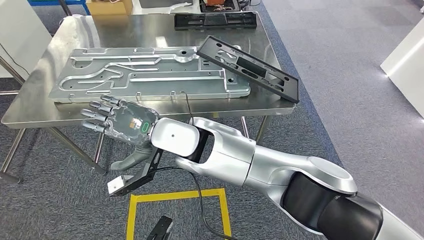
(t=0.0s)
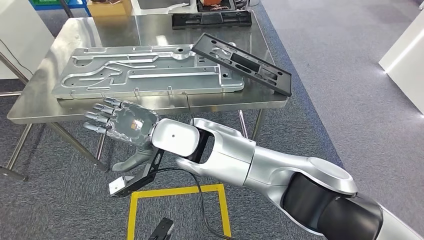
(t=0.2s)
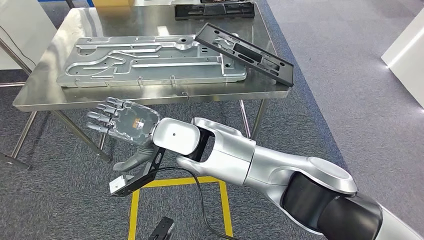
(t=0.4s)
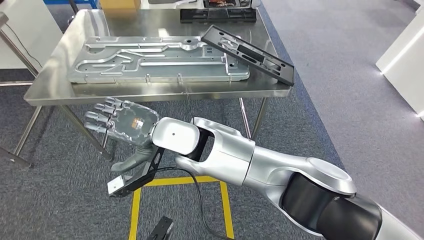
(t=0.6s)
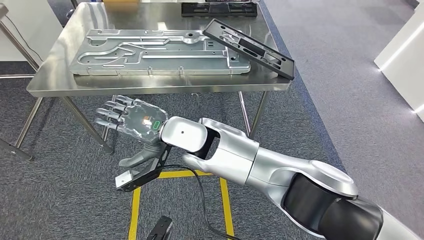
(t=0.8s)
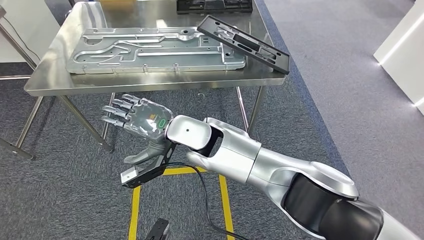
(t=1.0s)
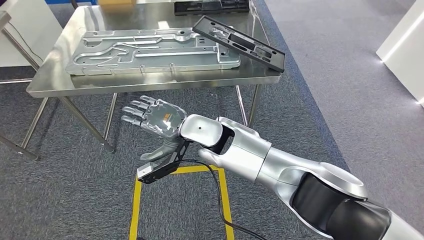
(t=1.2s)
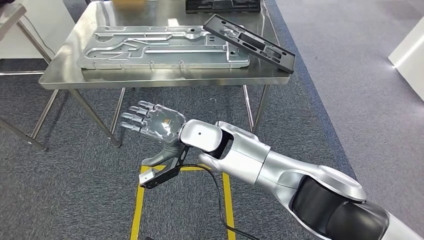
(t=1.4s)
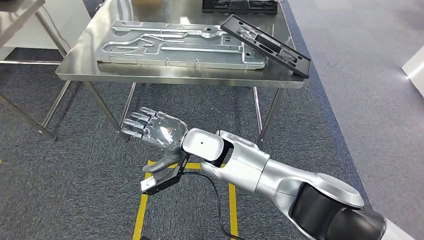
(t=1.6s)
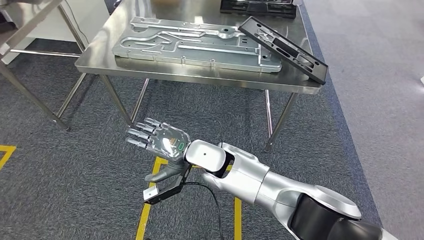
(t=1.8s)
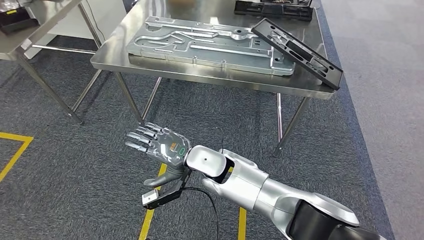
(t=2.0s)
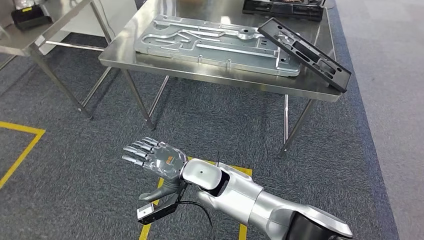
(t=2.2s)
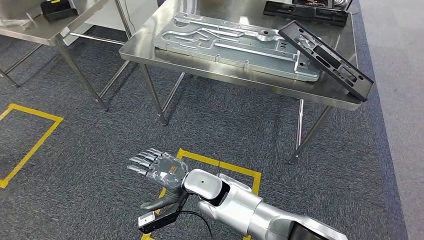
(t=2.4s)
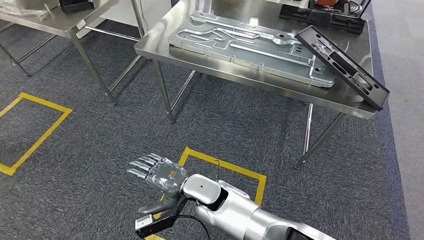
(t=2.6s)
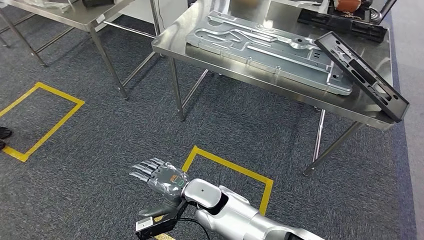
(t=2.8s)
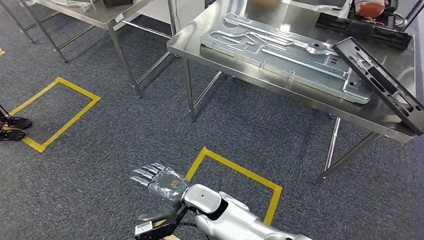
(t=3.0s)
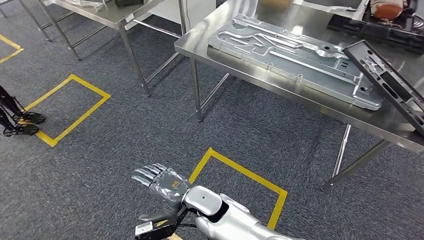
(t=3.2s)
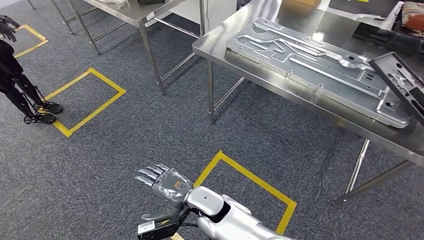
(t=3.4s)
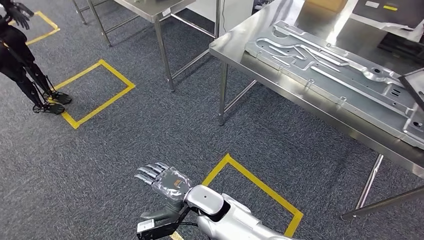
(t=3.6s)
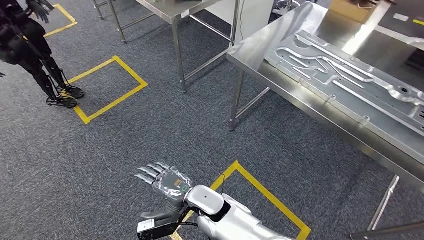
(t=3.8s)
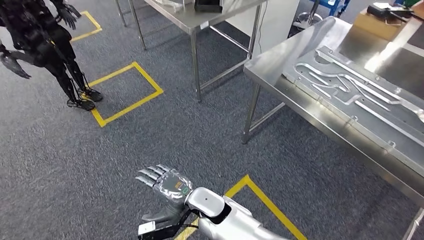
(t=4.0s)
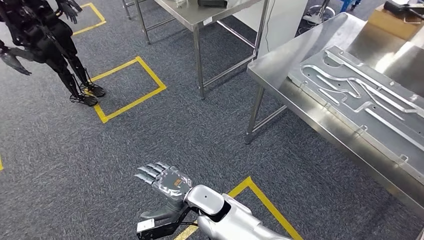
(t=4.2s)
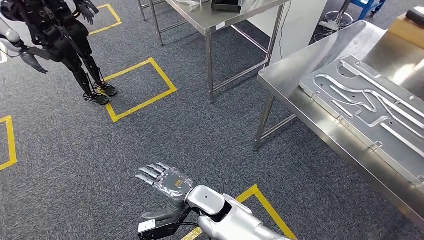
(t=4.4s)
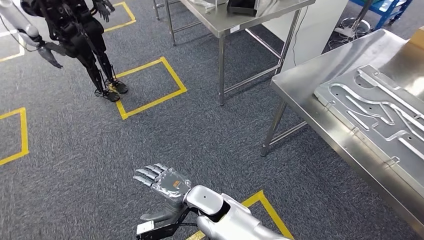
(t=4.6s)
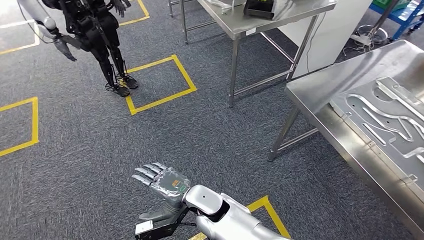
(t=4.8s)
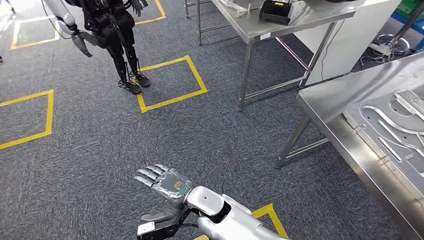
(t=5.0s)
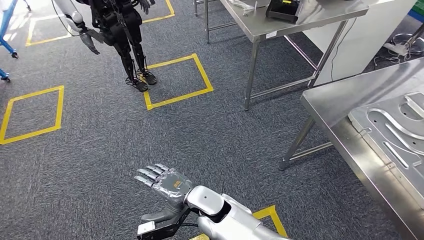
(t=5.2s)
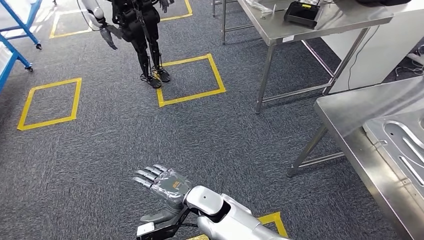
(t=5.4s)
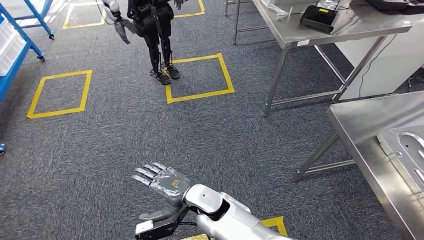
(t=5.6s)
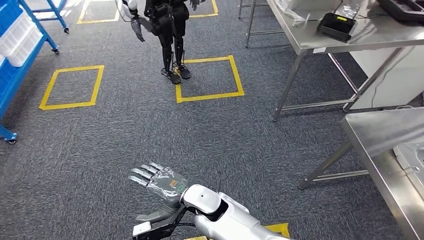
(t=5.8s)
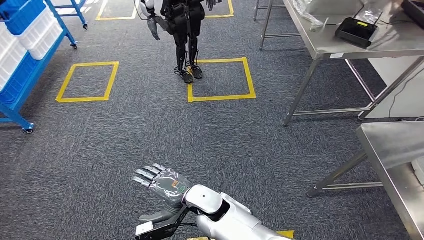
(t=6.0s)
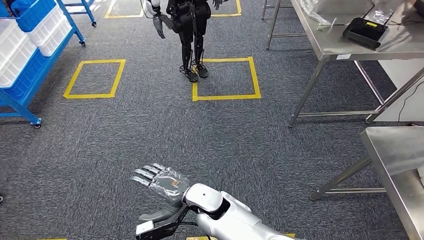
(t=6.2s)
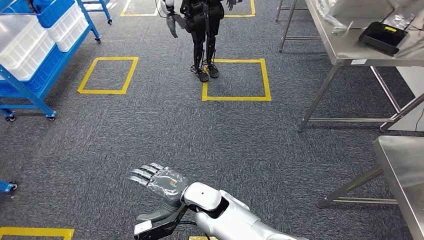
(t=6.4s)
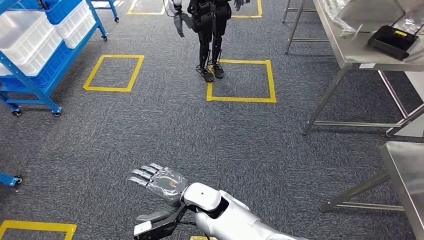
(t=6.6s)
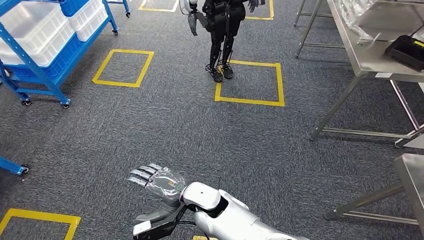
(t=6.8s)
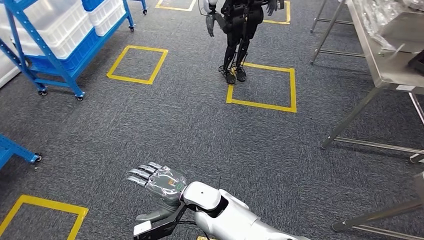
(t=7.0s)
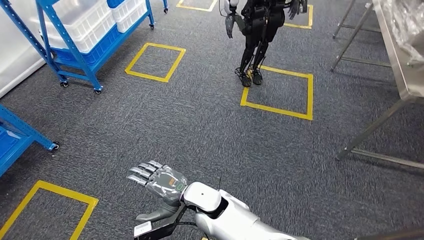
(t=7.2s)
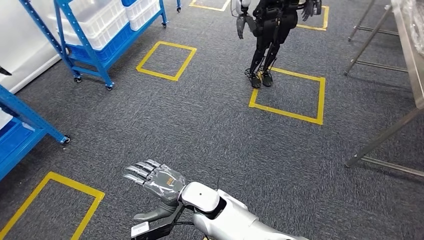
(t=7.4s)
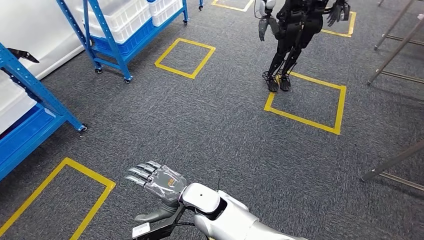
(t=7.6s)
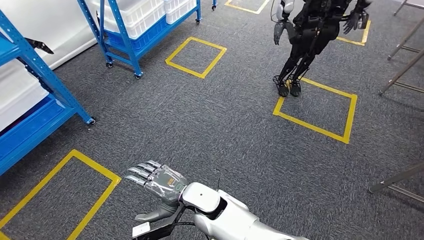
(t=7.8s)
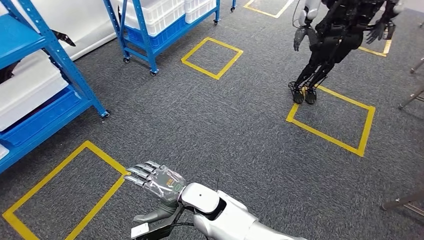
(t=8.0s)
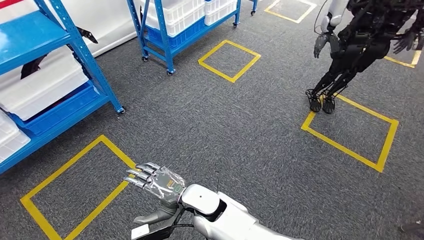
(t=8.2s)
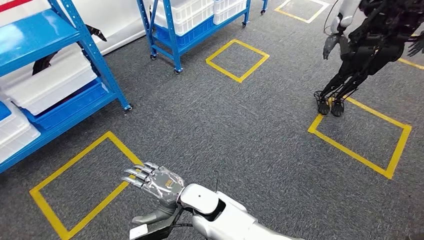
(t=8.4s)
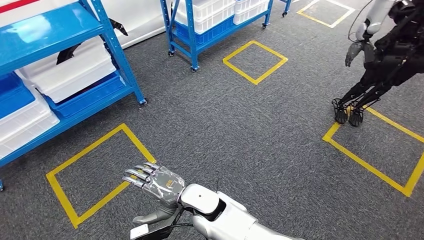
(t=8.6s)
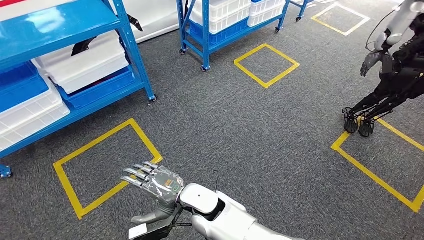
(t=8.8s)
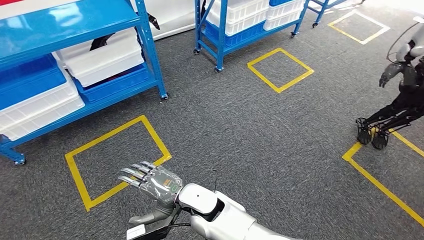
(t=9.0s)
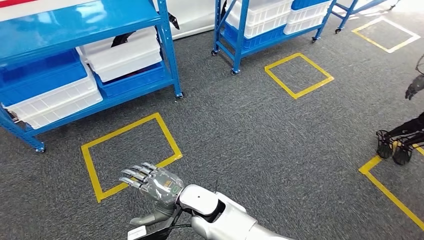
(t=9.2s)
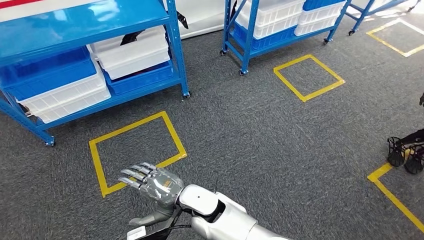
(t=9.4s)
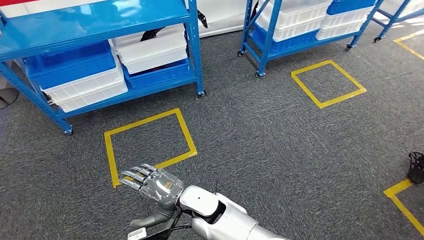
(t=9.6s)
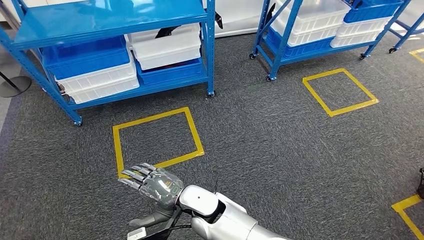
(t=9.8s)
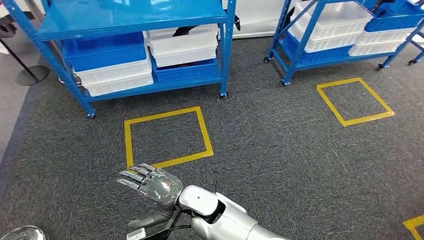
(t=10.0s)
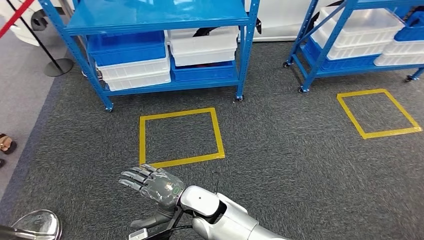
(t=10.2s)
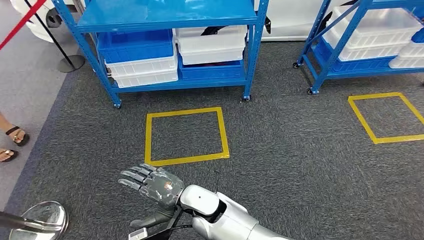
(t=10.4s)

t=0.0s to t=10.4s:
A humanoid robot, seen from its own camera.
Step, t=2.0s to t=10.2s: Return to the initial position at the shelf.
